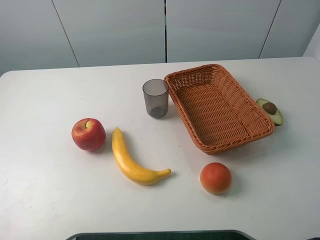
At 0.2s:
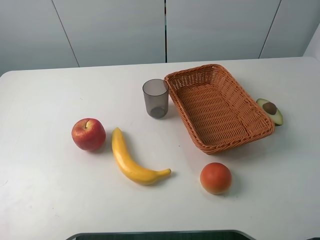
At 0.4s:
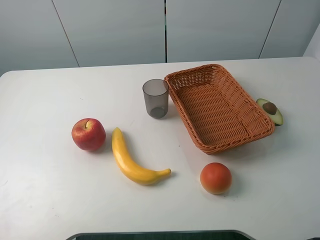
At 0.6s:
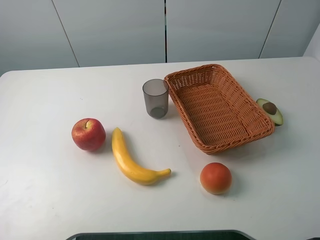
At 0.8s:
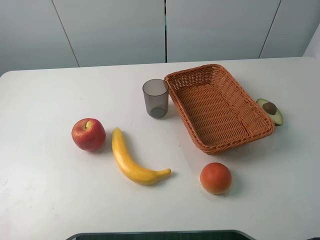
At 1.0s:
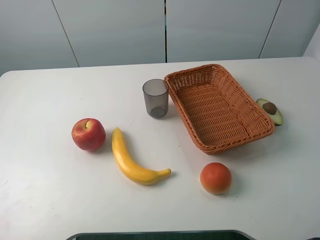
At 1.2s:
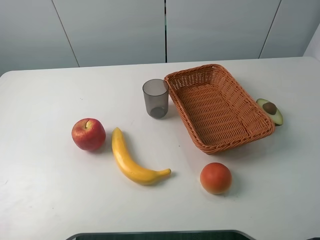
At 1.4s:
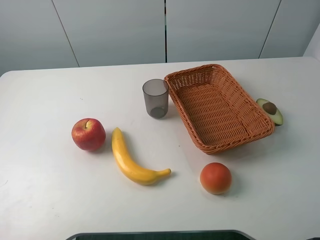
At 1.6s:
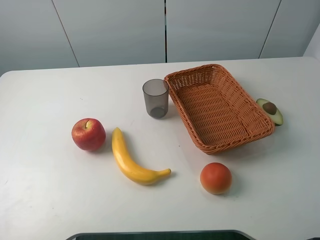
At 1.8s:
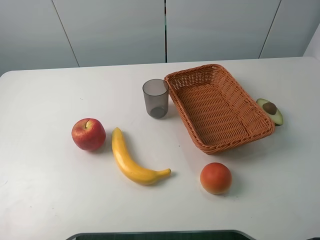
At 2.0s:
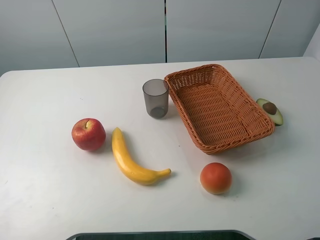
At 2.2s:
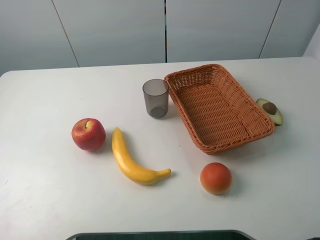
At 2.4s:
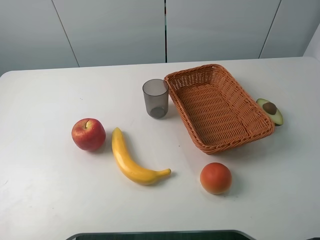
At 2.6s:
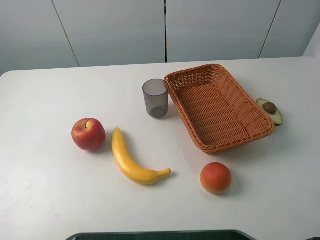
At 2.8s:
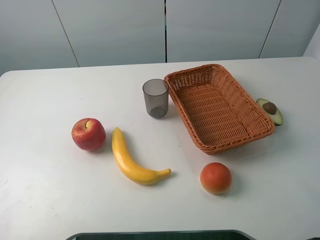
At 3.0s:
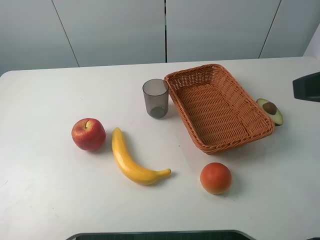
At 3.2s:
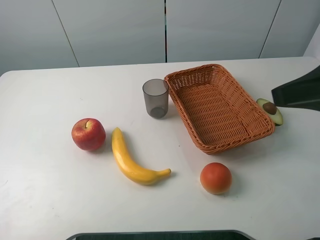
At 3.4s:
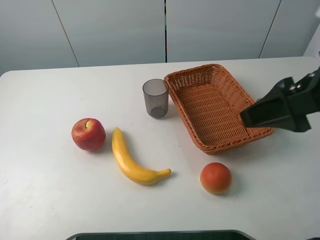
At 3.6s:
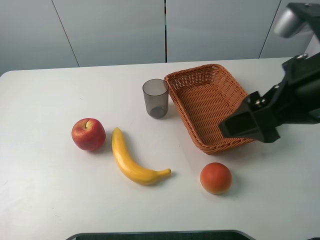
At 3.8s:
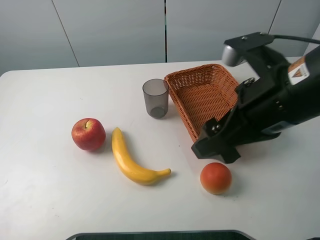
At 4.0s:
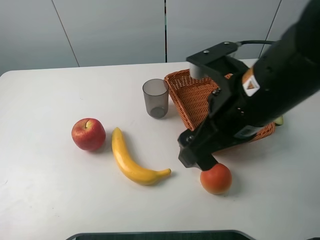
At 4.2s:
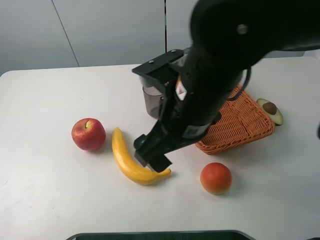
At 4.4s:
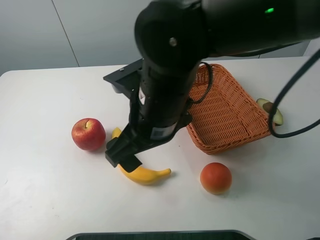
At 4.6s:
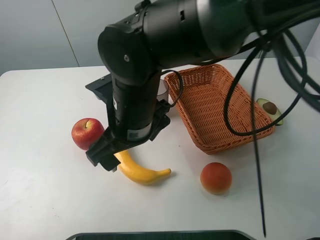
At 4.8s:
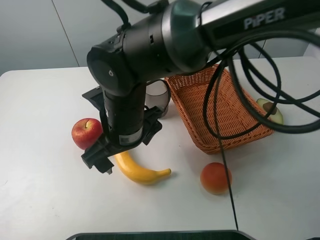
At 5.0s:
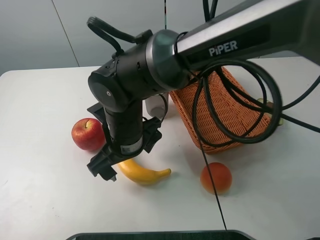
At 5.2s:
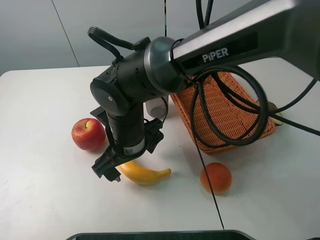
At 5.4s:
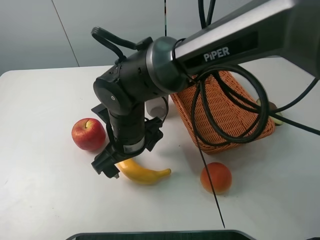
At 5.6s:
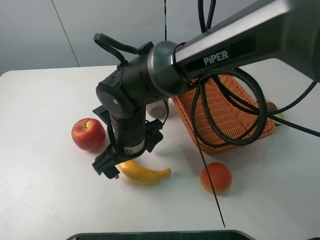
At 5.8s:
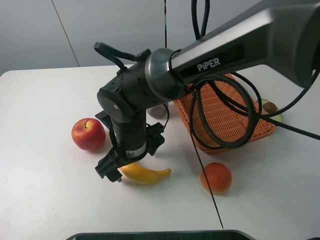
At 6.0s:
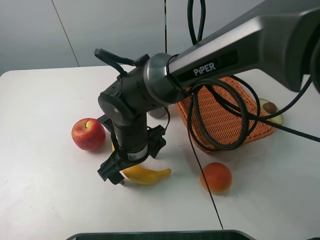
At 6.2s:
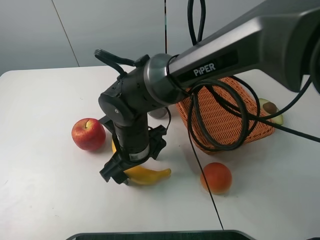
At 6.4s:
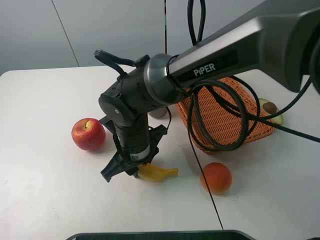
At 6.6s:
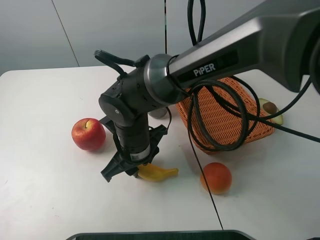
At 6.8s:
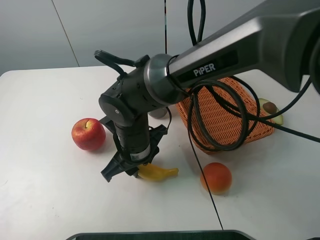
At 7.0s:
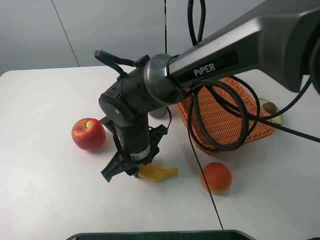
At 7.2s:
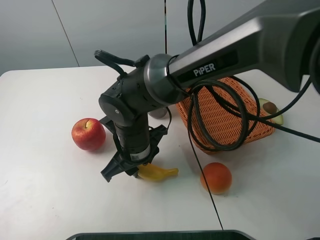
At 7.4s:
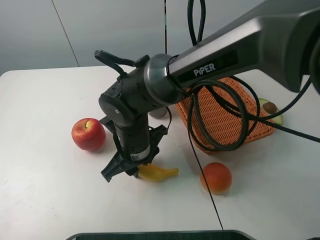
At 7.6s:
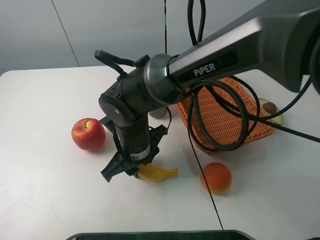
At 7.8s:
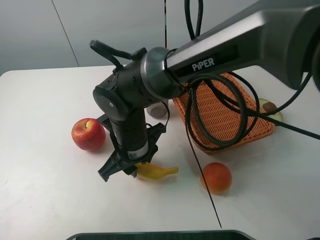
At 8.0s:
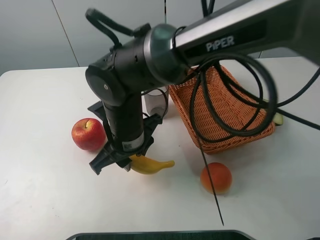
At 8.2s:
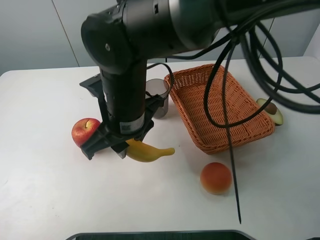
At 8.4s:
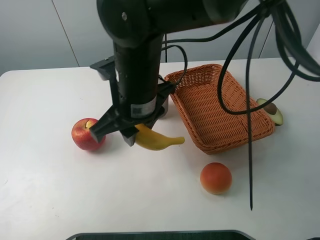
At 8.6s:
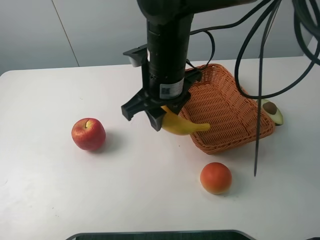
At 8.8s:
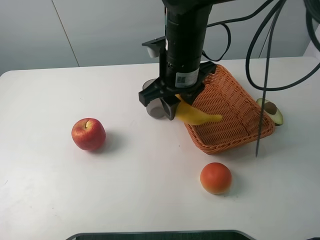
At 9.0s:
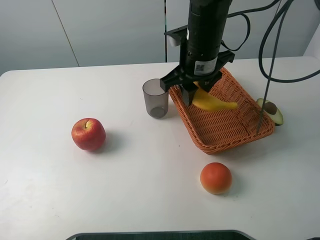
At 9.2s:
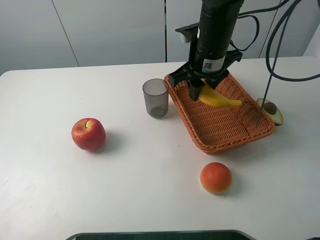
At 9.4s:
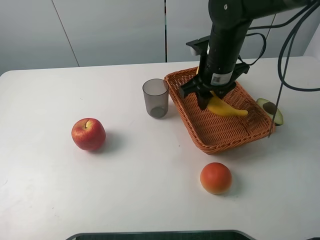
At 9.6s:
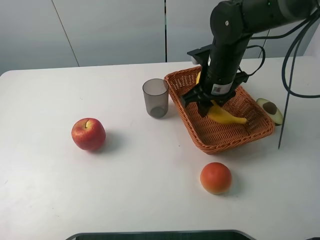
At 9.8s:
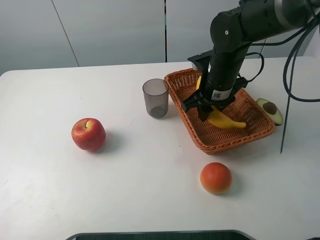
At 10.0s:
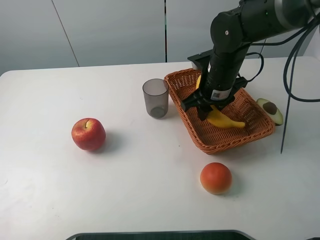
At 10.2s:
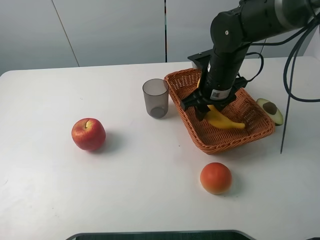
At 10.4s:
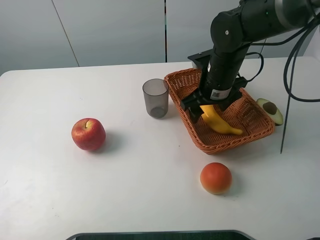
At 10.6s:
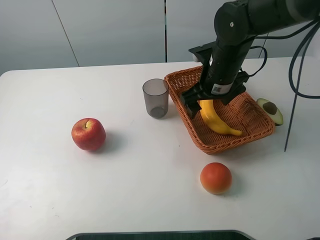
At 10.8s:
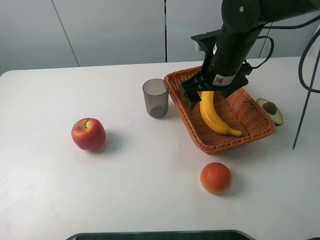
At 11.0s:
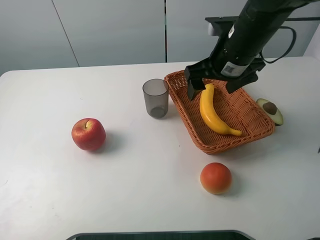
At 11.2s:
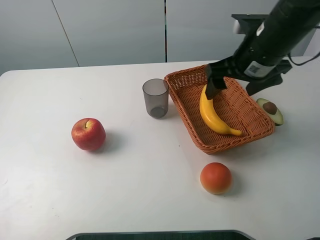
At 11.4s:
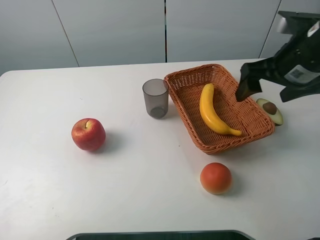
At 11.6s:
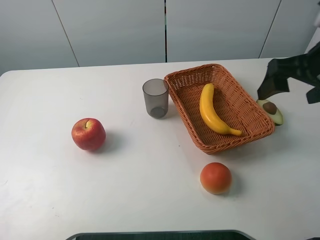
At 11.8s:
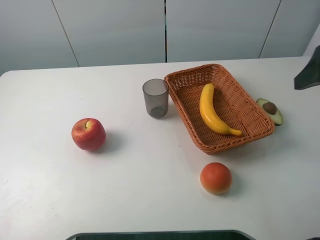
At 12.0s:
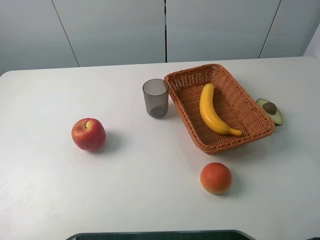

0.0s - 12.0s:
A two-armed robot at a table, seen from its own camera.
Task of the whole recording: randomly pick up an item from the table and put it in the basket.
Step, 0.0s - 6.6s: Grasp the banana with the right gripper.
Step, 6.8s - 10.8s: Place the banana into the basket with the right gripper.
1.6s - 3.0s: The right gripper goes about 10 cm forward.
3.0s - 4.4s: The right gripper heads to the left and downward, covering about 25 cm.
4.4s - 6.0s: The right gripper shifts some 15 cm downward and to the left.
6.0s - 7.6s: The right gripper closes.
7.6s - 9.0s: The right gripper travels upward, to the right and forward by approximately 20 cm.
9.0s - 10.4s: The right gripper moves downward and to the right, some 10 cm, and opens its fingers.
10.4s - 12.0s: The right gripper goes about 25 cm to the right, upward and backward, and opens up.

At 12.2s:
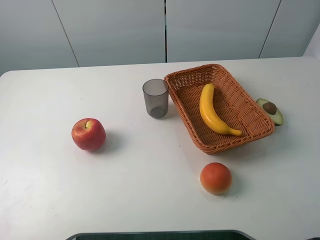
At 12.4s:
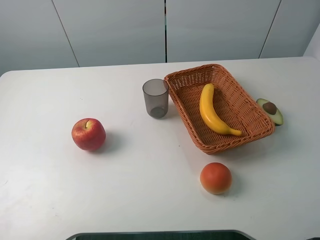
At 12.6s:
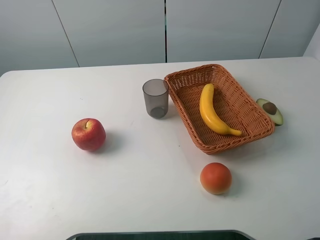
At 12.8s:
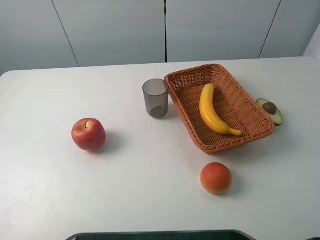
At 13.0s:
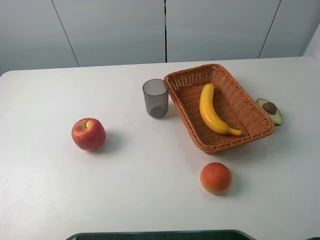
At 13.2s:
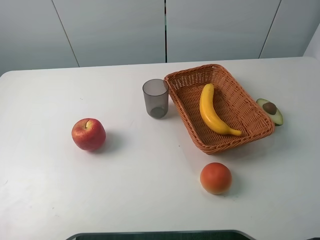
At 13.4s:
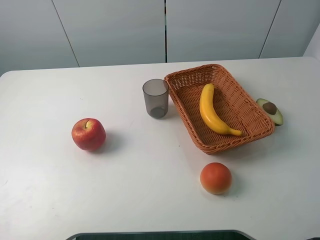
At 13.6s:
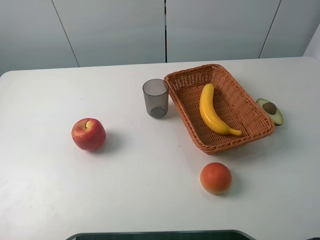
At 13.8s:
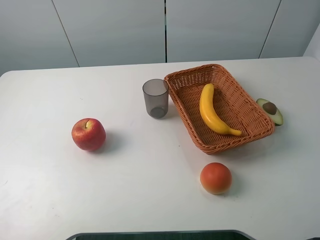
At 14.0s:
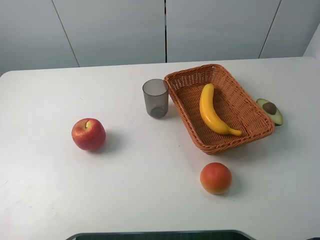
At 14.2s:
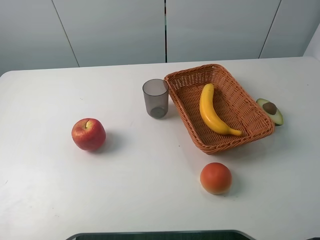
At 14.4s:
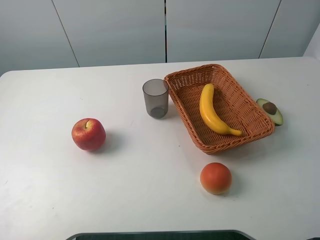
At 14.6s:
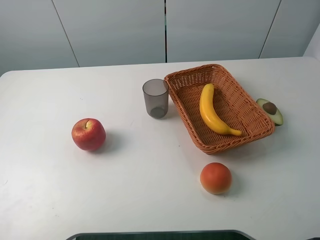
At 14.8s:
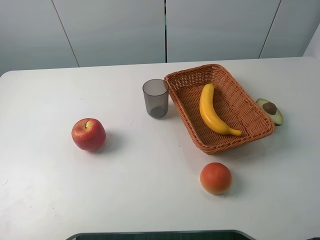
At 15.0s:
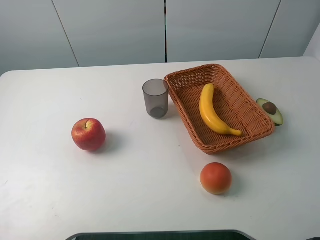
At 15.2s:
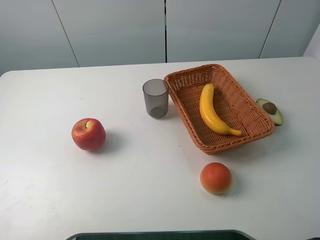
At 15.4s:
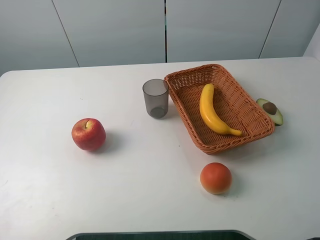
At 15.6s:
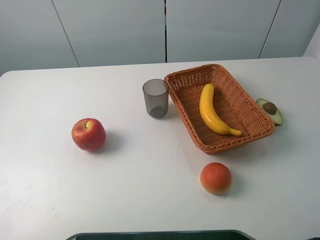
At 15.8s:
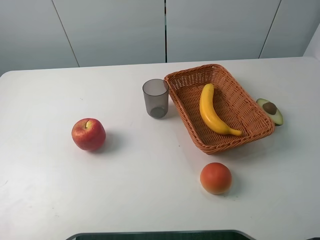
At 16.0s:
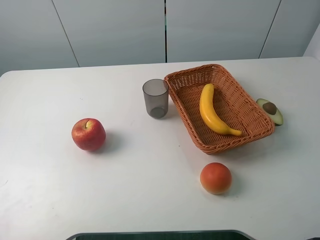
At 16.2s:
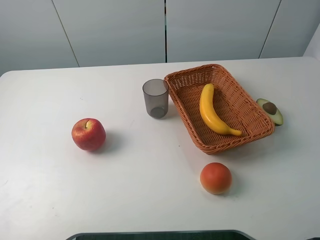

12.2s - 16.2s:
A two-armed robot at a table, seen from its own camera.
Task of the whole recording: randomly pick up an item from the table and put it in the basket.
13.6s - 14.8s: The two grippers keep their place.
